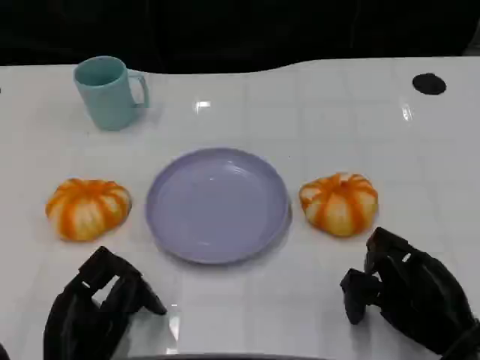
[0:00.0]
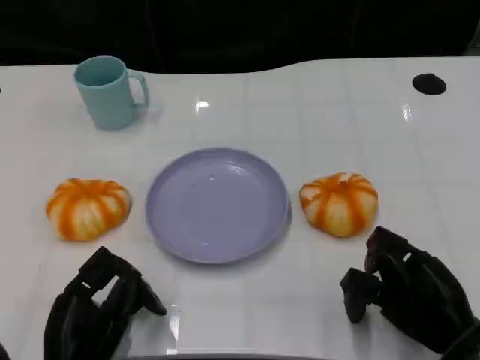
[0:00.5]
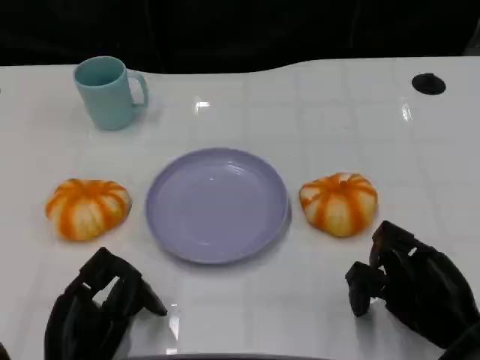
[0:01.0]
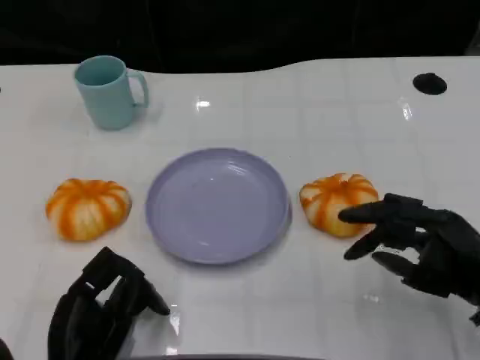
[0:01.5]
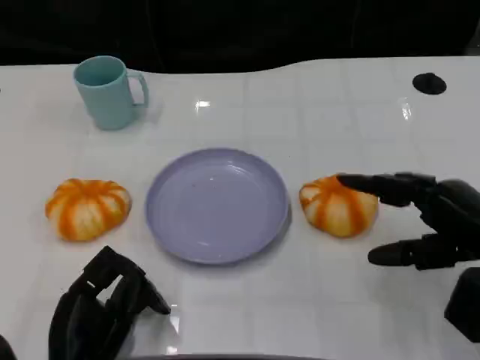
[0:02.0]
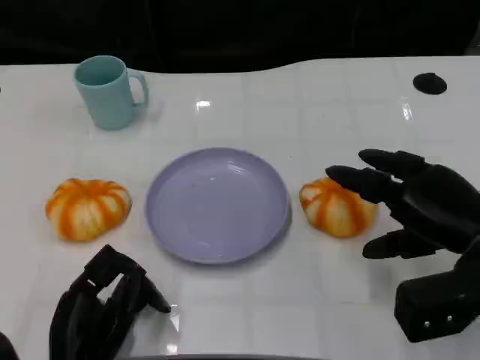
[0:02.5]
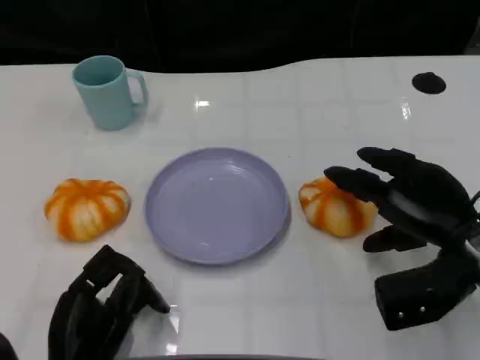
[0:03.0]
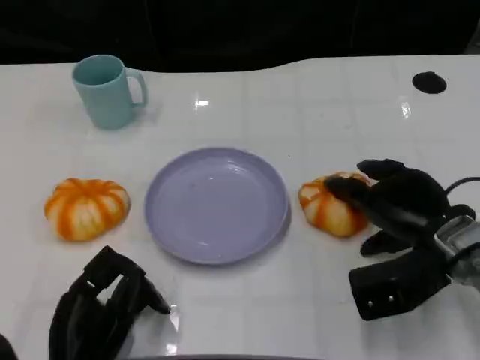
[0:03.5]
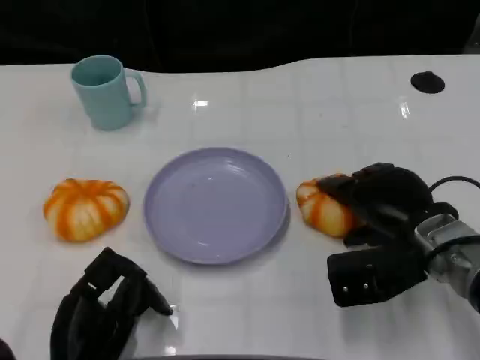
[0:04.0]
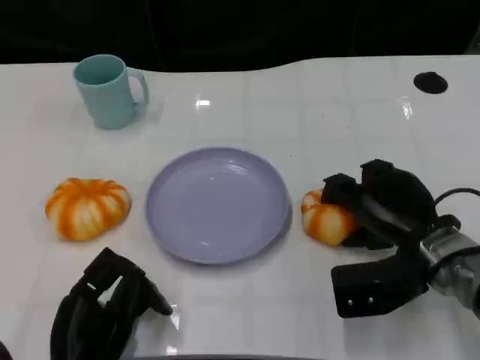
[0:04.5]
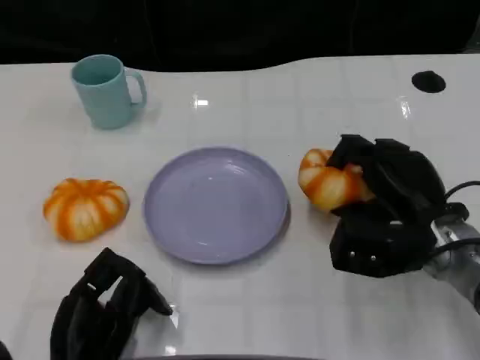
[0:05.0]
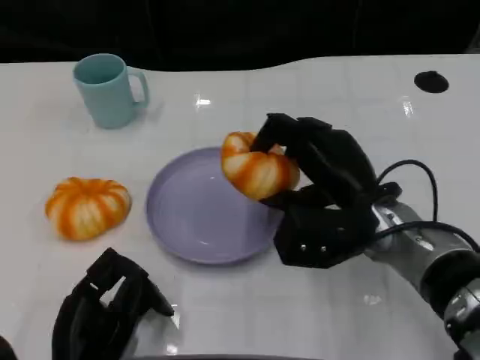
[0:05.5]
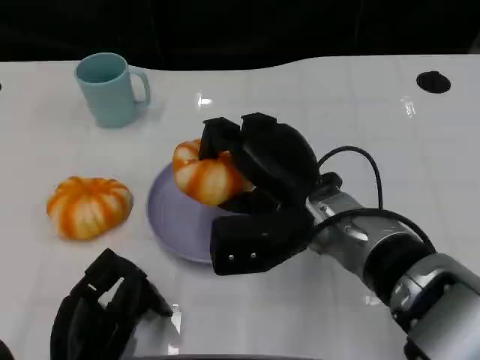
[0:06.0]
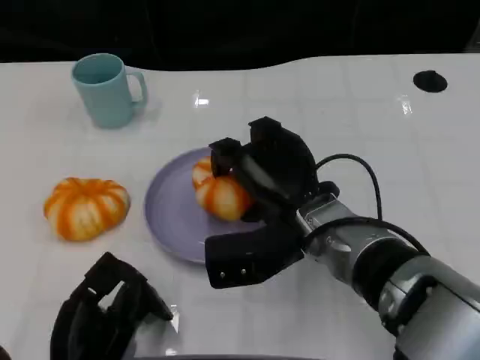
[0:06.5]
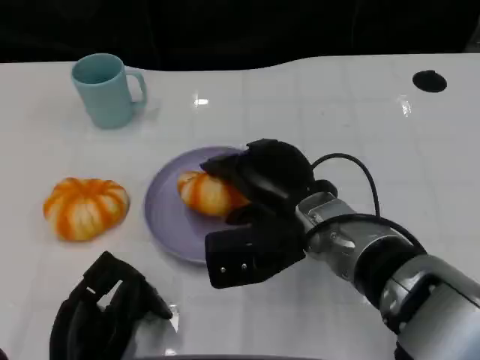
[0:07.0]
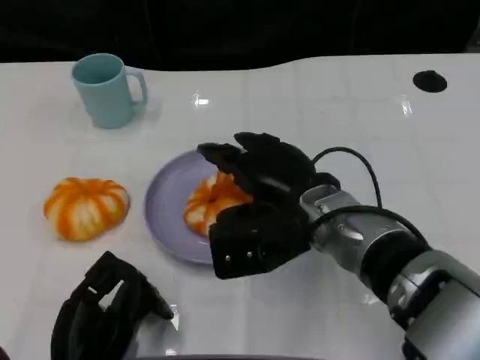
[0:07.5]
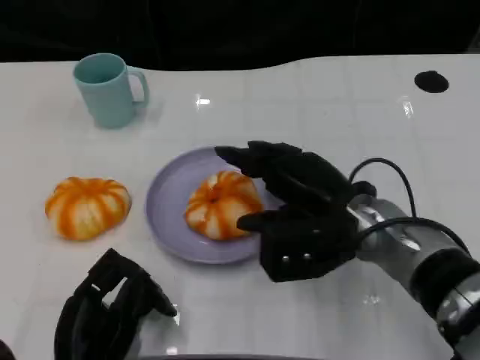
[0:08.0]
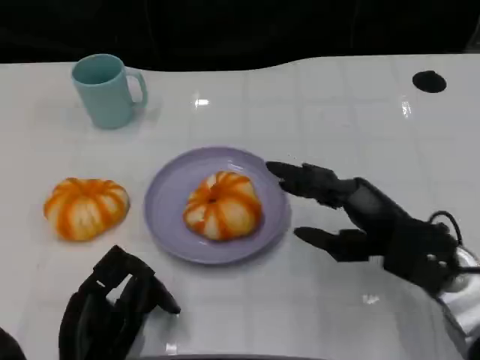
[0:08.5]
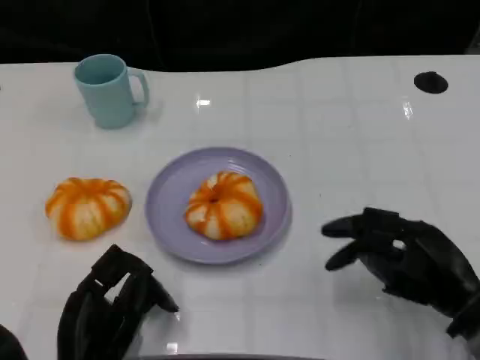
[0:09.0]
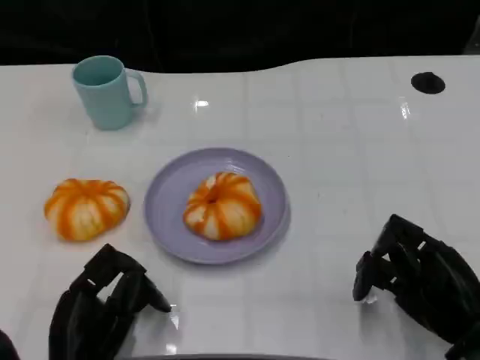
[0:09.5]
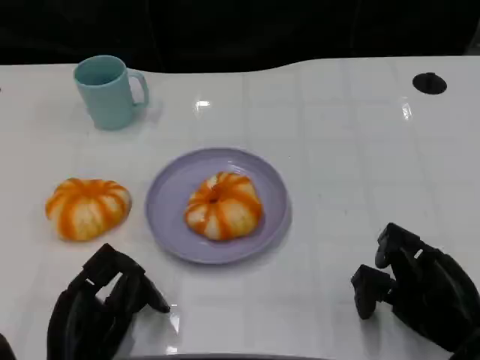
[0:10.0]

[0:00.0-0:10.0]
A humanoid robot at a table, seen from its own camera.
Task of the whole recording: Grasp the bread from the table and place it into the plate.
0:00.0 to 0:02.0: The right hand shifts some 10 cm upward.
0:02.0 to 0:04.0: The right hand goes roughly 10 cm to the left and forward.
0:04.0 to 0:06.0: The right hand shifts about 10 cm to the left.
0:06.0 to 0:08.0: The hands make only small movements.
0:08.0 to 0:10.0: The right hand is displaced to the right, backward and downward by some 20 cm.

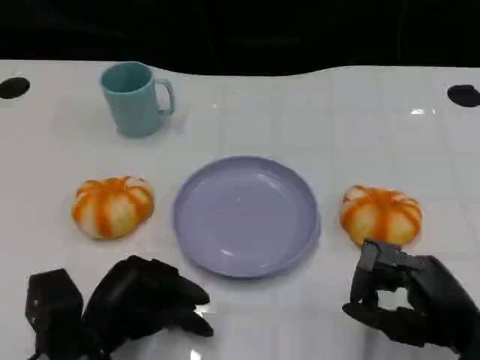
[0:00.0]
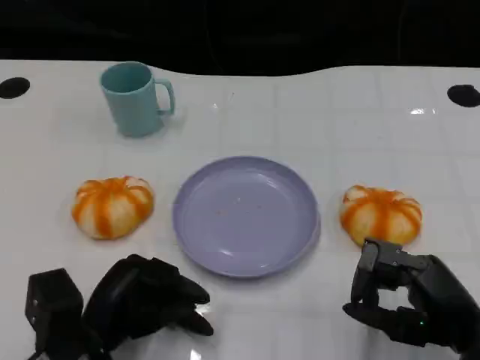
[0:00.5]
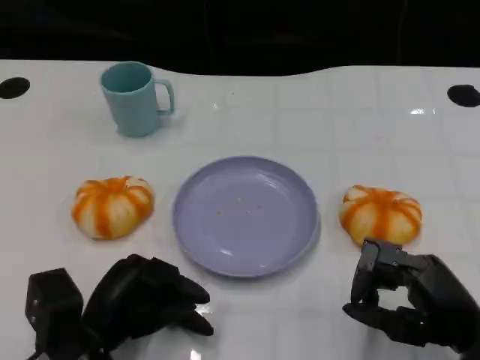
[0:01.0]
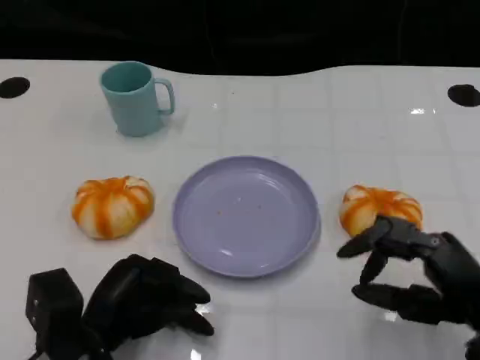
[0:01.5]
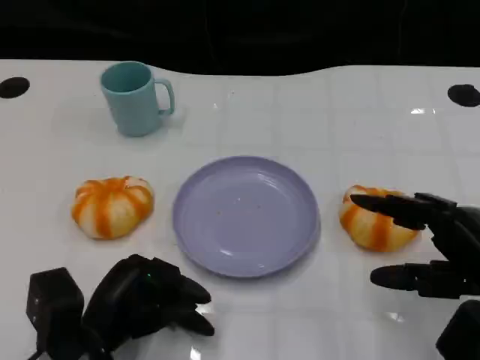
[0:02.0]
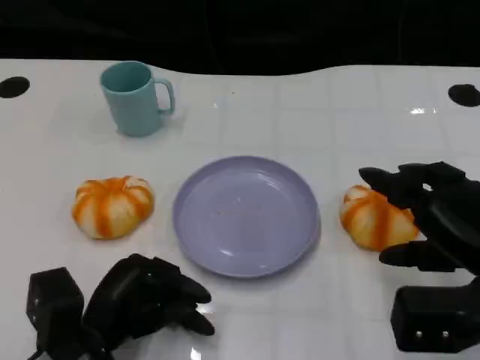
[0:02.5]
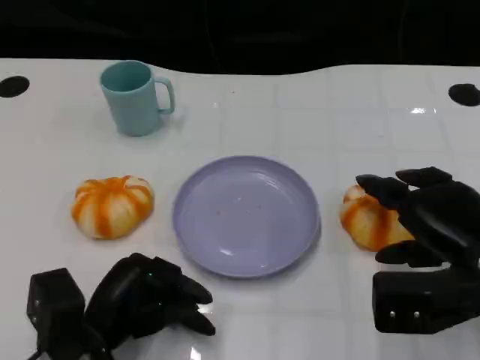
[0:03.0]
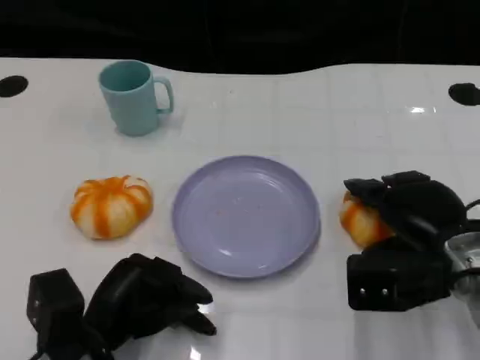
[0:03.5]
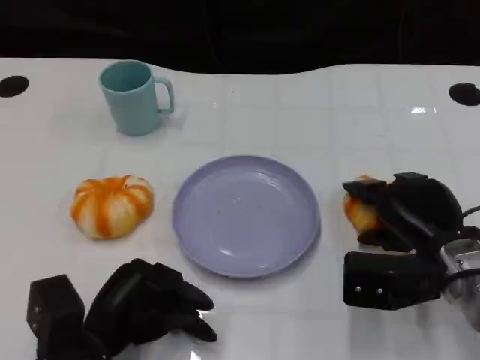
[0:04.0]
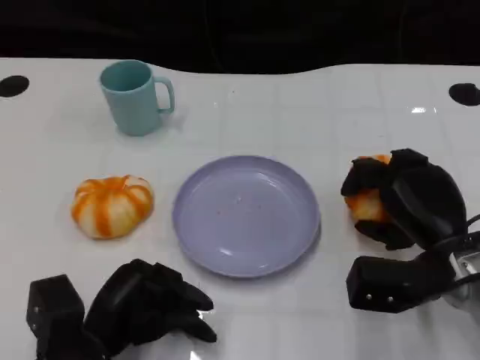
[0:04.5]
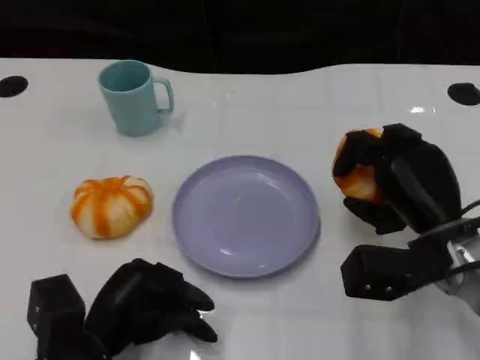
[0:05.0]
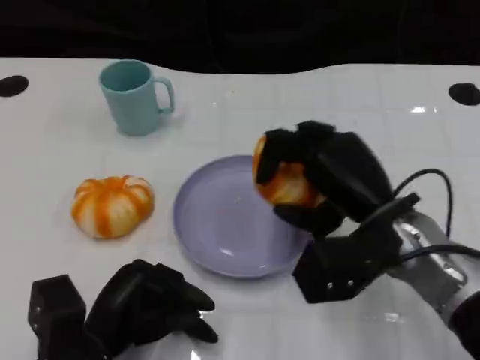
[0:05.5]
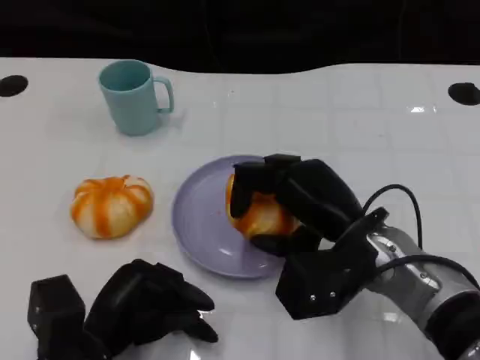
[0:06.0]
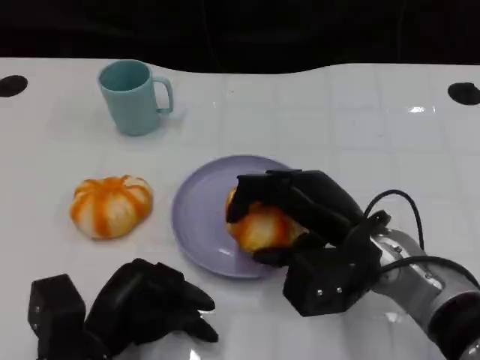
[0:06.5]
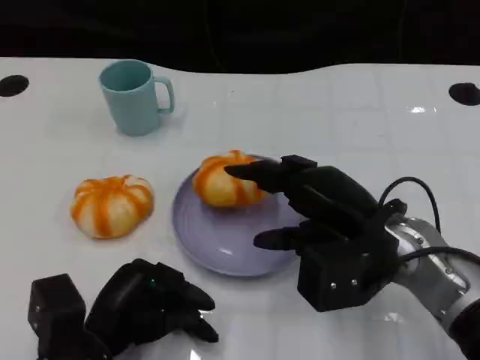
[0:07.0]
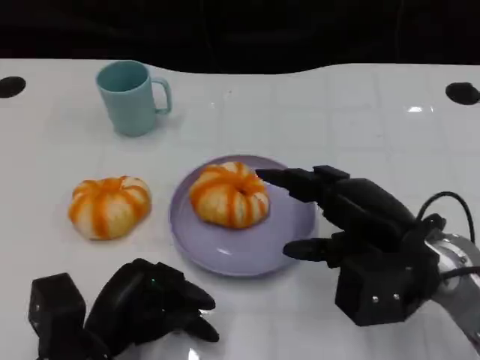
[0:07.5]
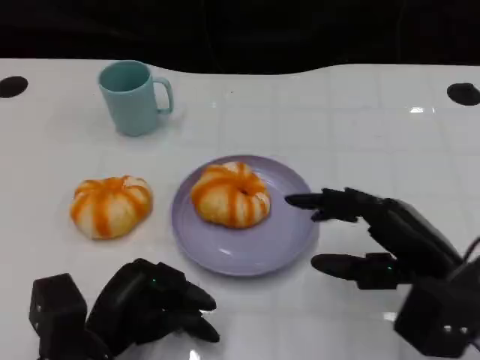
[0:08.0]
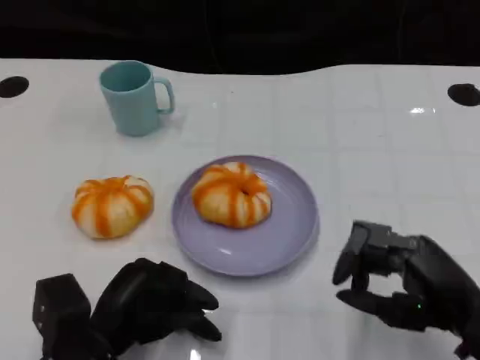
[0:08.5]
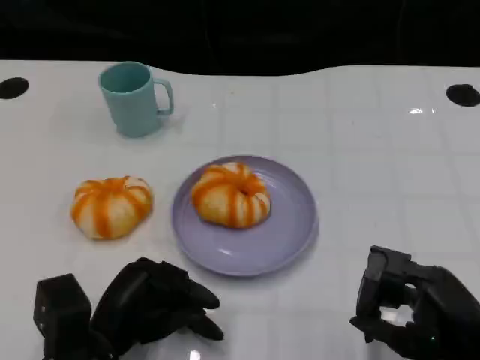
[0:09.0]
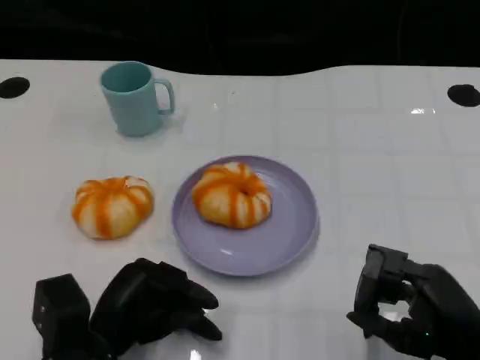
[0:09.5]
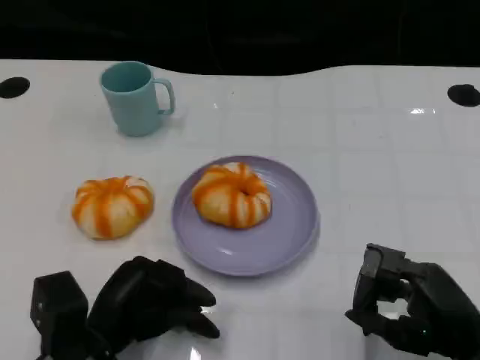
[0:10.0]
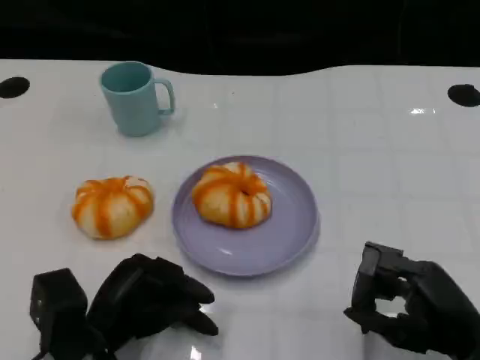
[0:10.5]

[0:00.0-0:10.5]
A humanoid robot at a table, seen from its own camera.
Task of the whole recording: Grasp the bread from the table and place it into the plate.
0:00.0 to 0:02.0: The right hand shifts about 5 cm upward.
0:02.0 to 0:04.0: The right hand goes about 10 cm forward and to the left.
0:04.0 to 0:06.5: The right hand shifts about 10 cm to the left.
0:06.5 to 0:08.5: The right hand shifts roughly 15 cm to the right and backward.
0:08.5 to 0:10.5: The hands make only small movements.

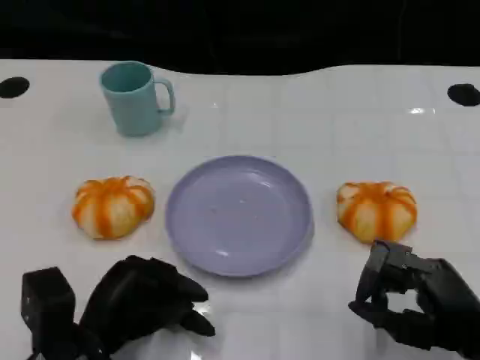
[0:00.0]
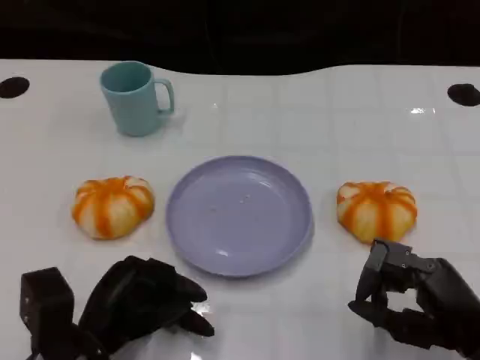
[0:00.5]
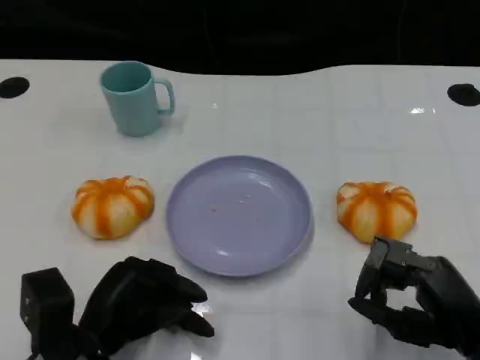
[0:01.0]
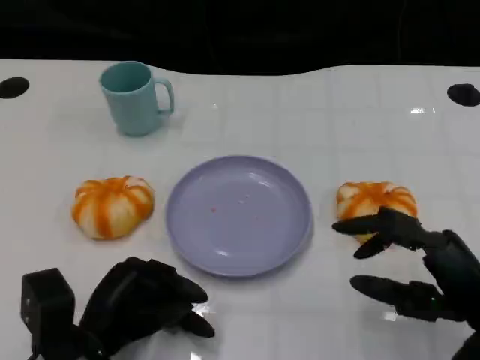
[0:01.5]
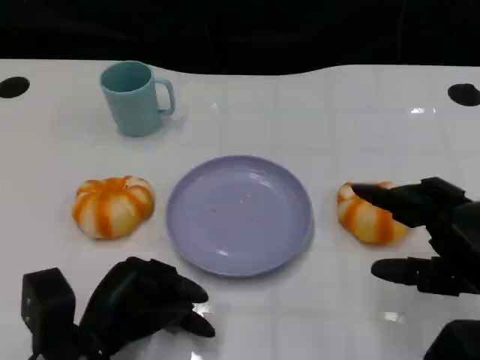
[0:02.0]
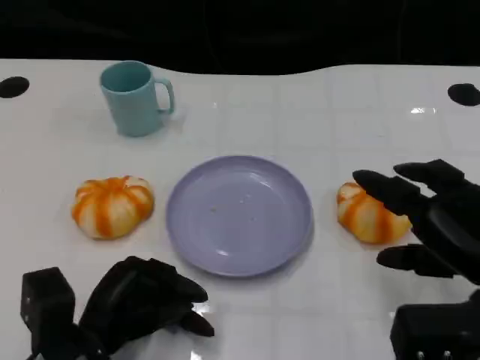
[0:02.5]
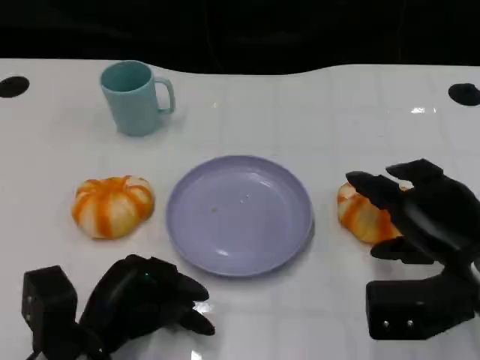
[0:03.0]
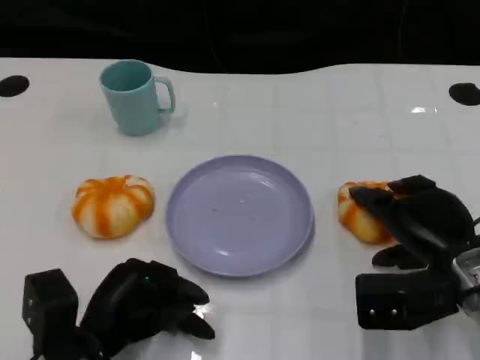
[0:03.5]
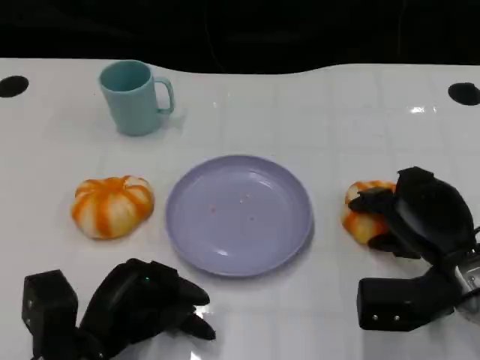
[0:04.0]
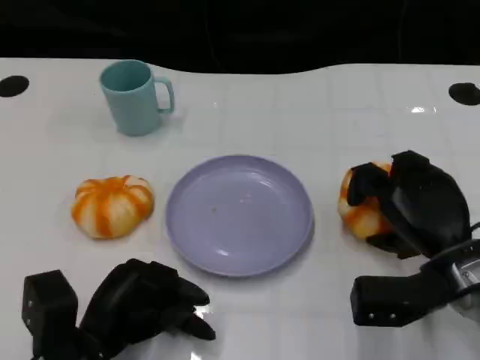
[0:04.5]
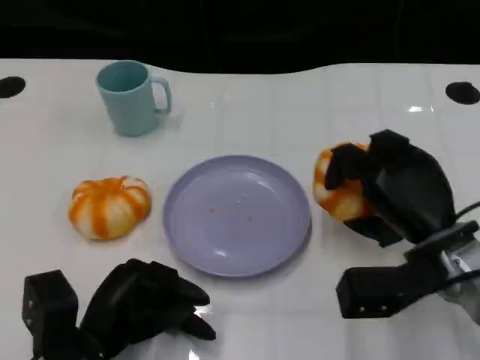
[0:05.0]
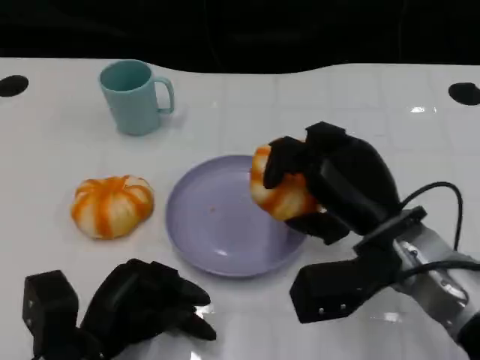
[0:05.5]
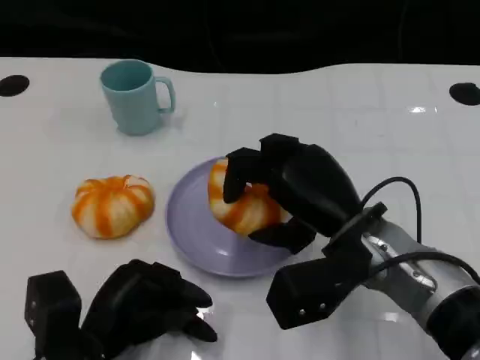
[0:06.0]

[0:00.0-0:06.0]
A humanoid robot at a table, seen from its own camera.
Task of the whole recording: Grasp the bread from the table and place it into the plate.
0:00.0 to 0:02.0: The right hand goes some 5 cm upward.
0:02.0 to 0:04.0: The right hand heads forward and downward, covering roughly 10 cm.
0:04.0 to 0:06.0: The right hand shifts approximately 10 cm to the left and upward.
